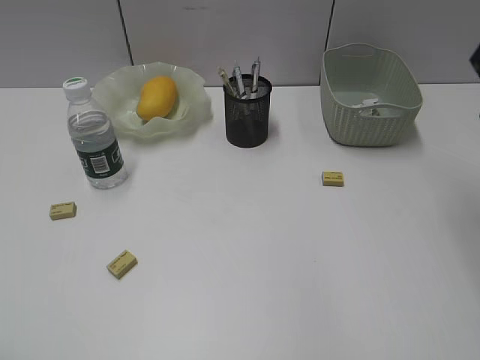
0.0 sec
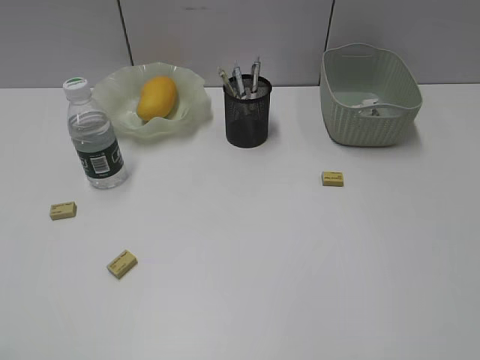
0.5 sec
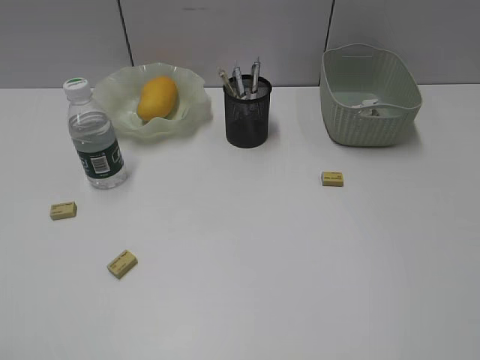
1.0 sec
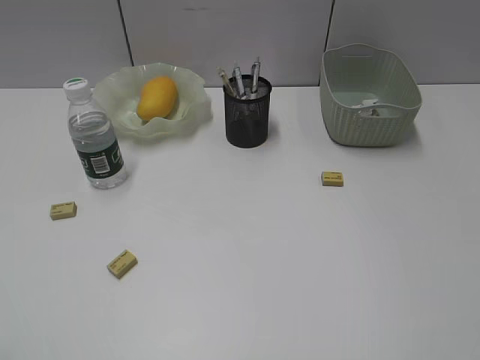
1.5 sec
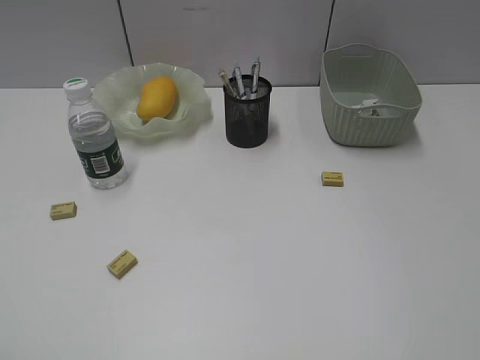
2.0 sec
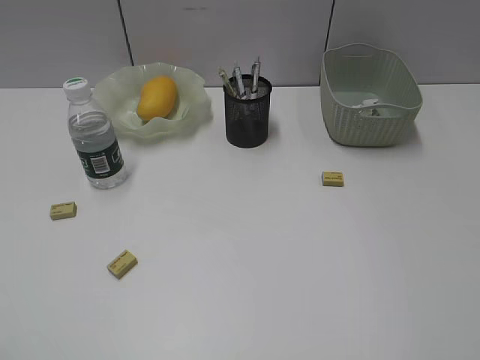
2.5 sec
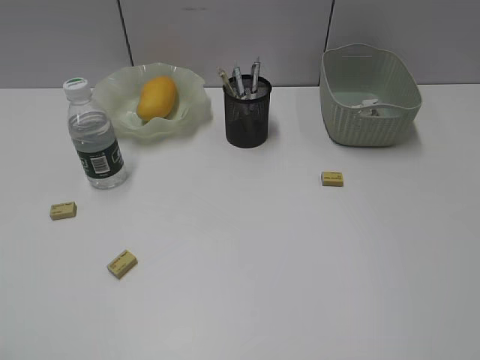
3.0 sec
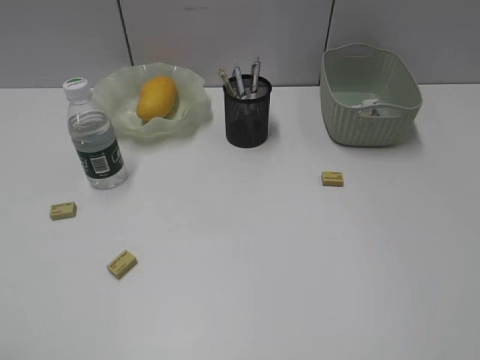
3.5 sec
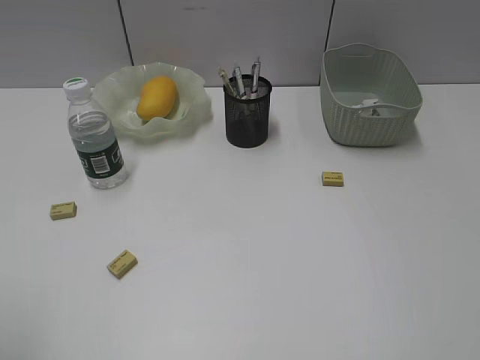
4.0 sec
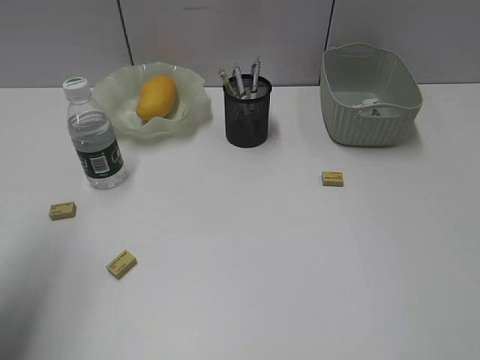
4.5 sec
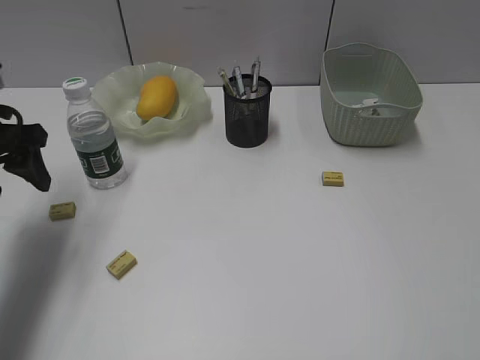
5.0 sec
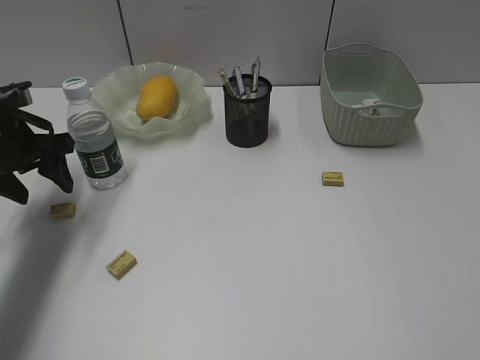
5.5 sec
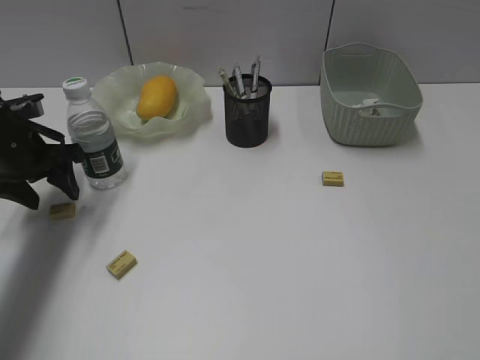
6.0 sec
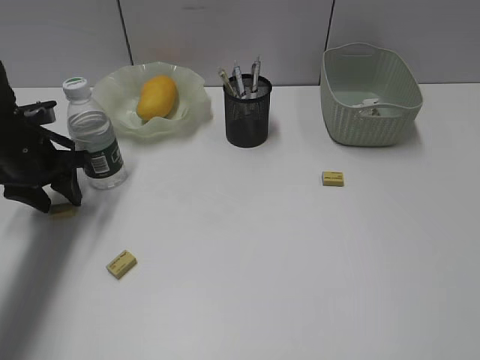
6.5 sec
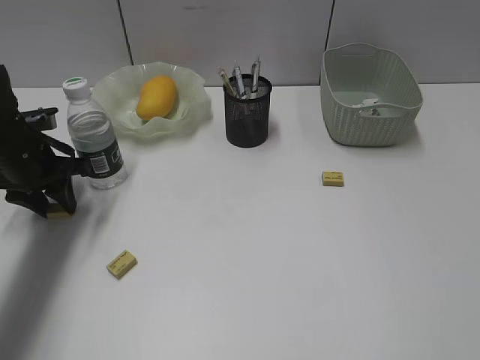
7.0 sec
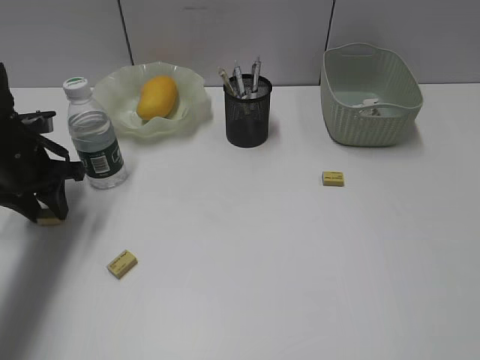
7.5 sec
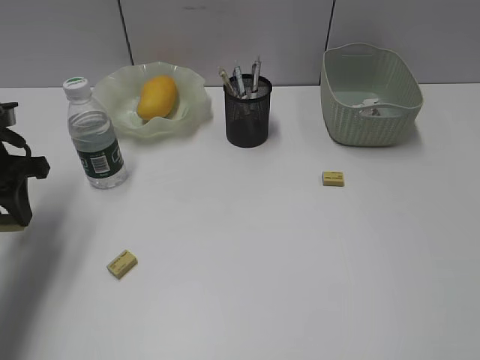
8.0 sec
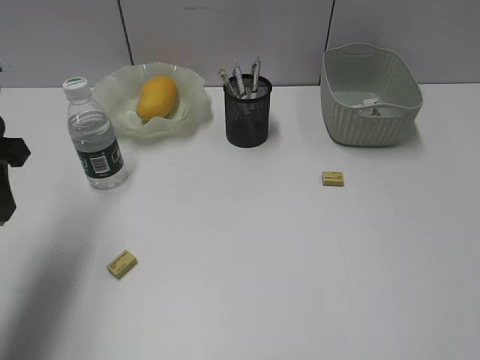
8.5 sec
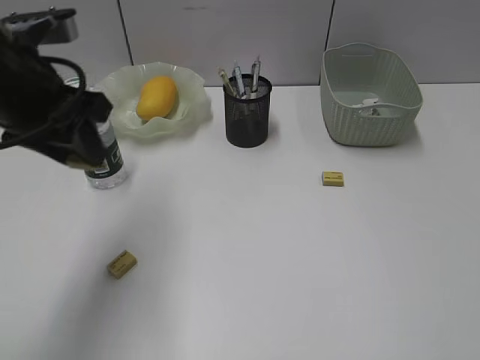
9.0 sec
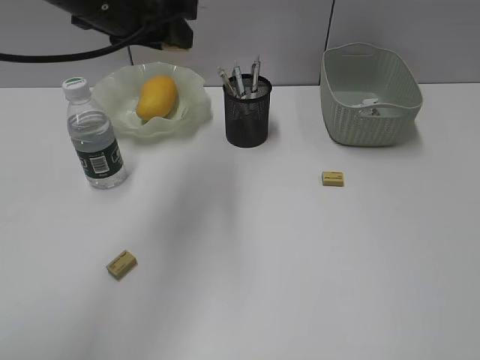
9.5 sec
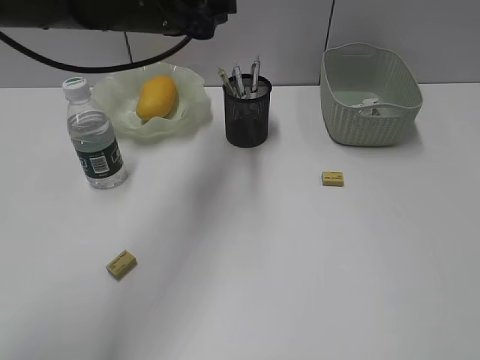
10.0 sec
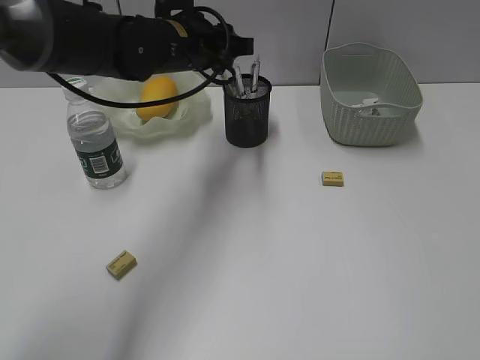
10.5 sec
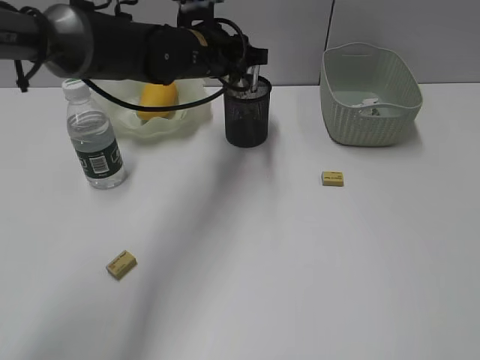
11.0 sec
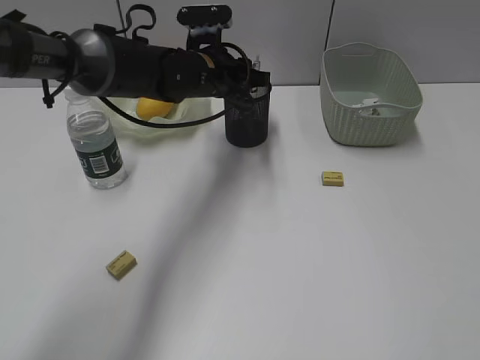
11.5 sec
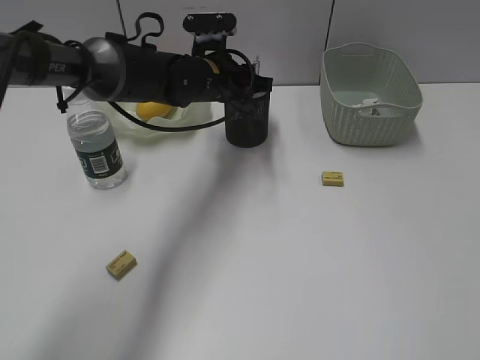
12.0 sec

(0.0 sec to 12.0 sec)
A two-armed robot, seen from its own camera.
Step, 0.0 sec - 7.0 sec: Grasp the eraser with left gripper.
4.0 sec - 6.0 sec: The left gripper travels forward and downward by approximately 35 cm.
6.0 sec - 8.0 sec: The left gripper closes.
8.0 sec - 10.0 sec: The left gripper moves to the right and upward, roughly 25 cm.
10.0 sec - 12.0 sec: The left gripper goes roughly 15 cm downward, to the right and forward.

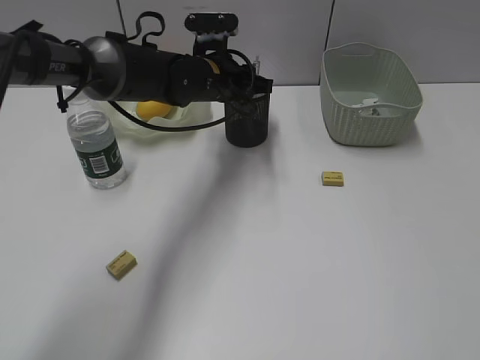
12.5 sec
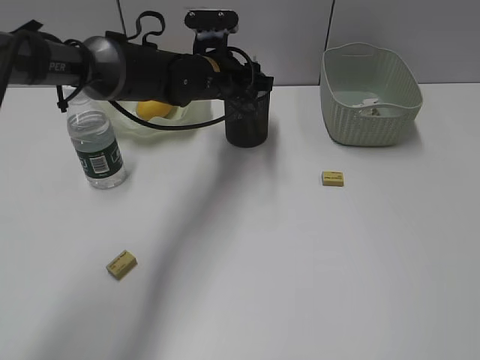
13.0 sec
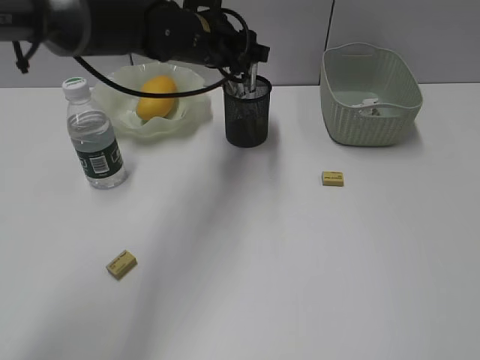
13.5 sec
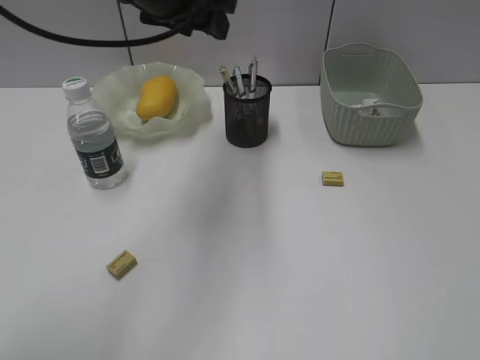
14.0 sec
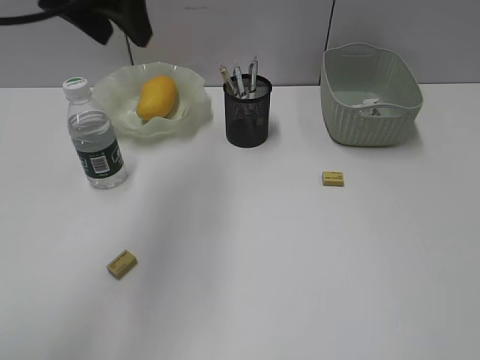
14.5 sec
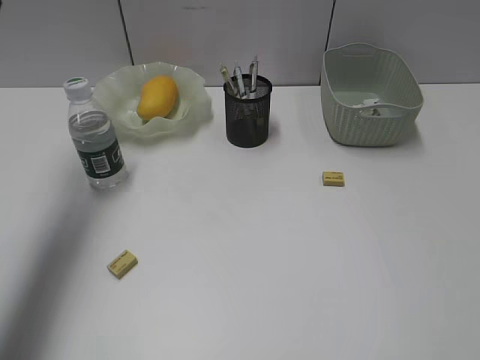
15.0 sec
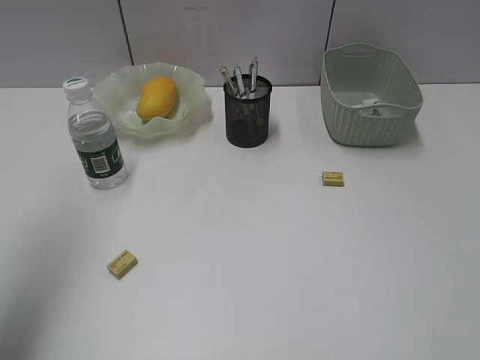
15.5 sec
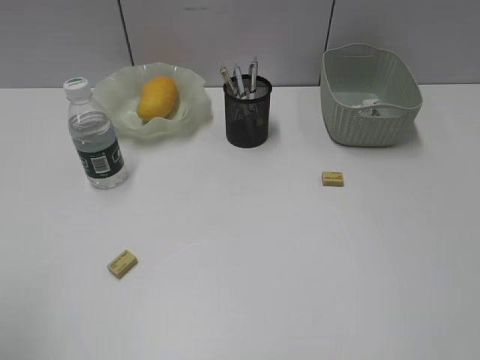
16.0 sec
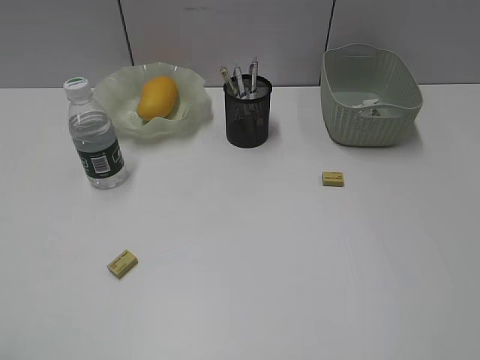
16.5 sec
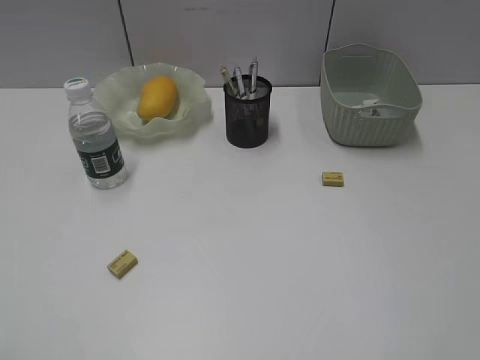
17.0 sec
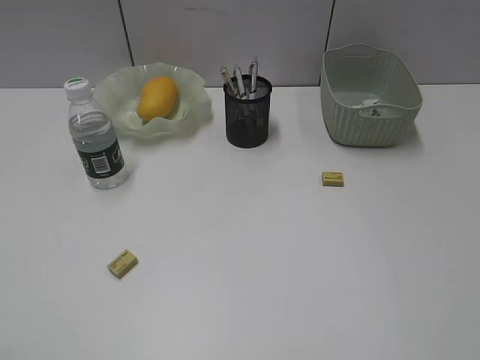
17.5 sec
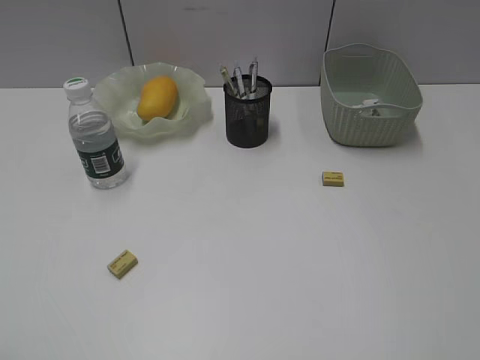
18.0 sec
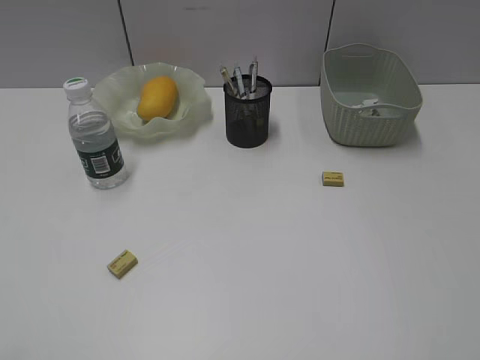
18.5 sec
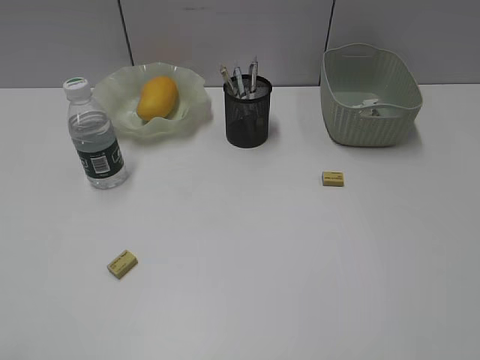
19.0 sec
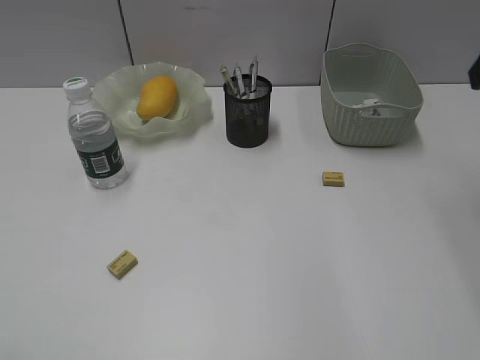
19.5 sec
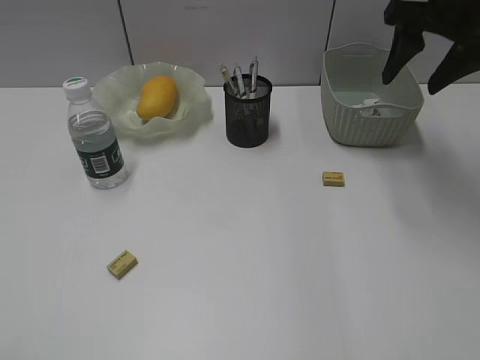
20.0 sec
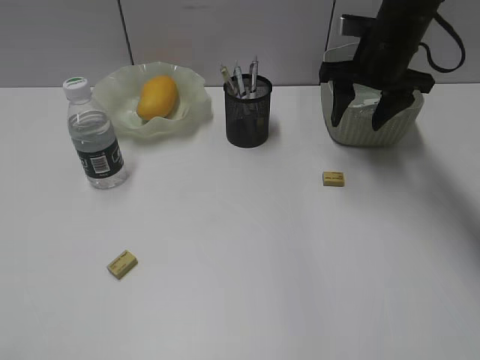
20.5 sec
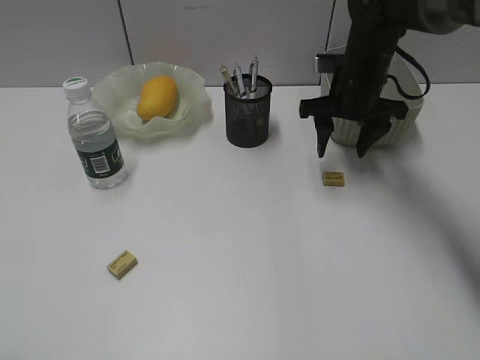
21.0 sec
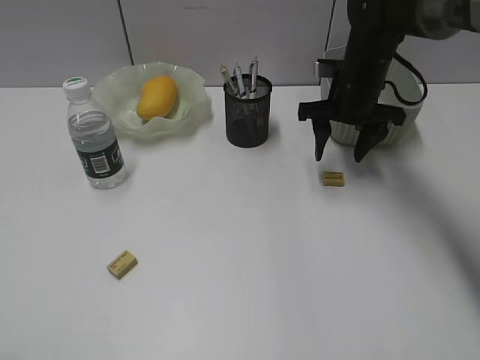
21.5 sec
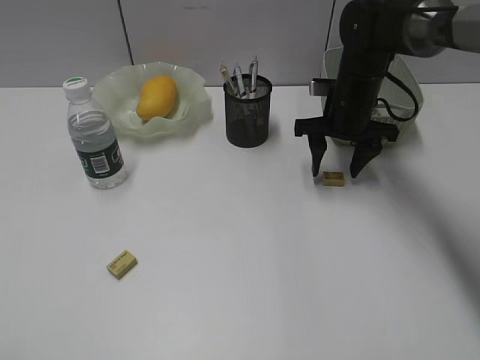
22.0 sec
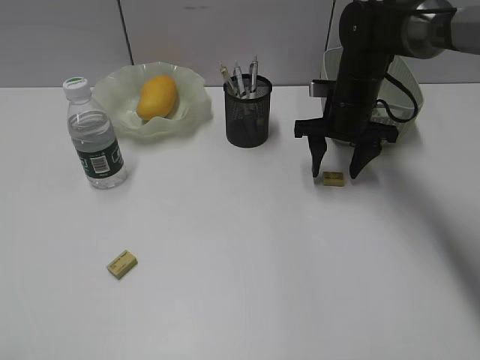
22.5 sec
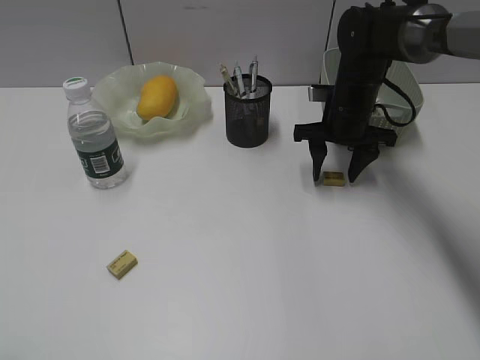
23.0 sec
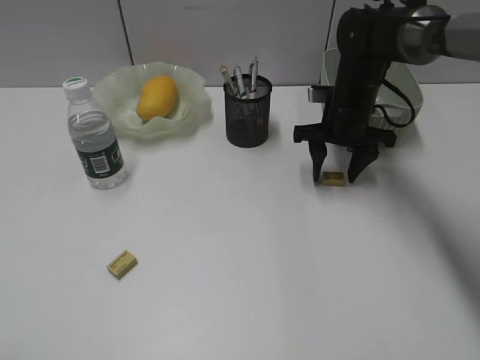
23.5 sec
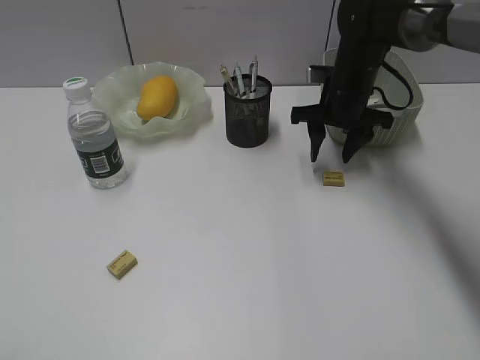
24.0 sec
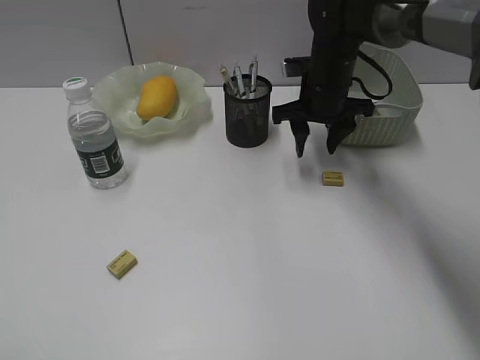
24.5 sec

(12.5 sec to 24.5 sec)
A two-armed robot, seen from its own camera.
12.5 sec - 14.5 sec: The left gripper travels upward, backward and to the left by about 25 cm.
14.5 sec - 16.5 sec: The left gripper shifts roughly 35 cm backward and to the left.
18.5 sec - 20.5 sec: The right gripper moves forward, about 40 cm.
20.5 sec - 22.5 sec: The right gripper goes some 10 cm downward.
22.5 sec - 24.5 sec: The grippers make only small movements.

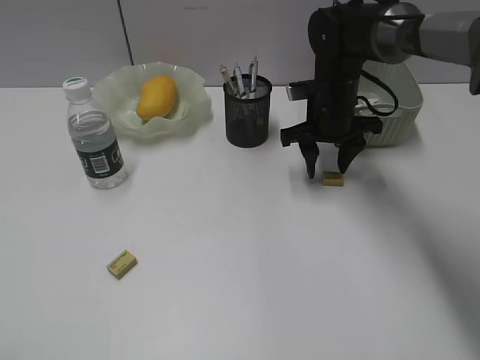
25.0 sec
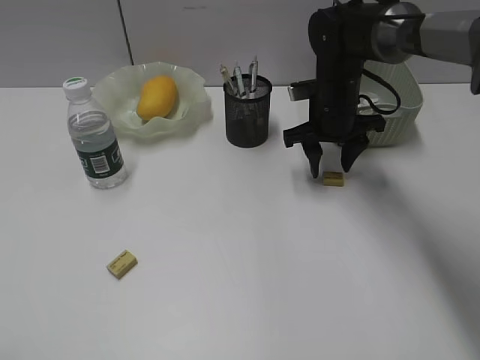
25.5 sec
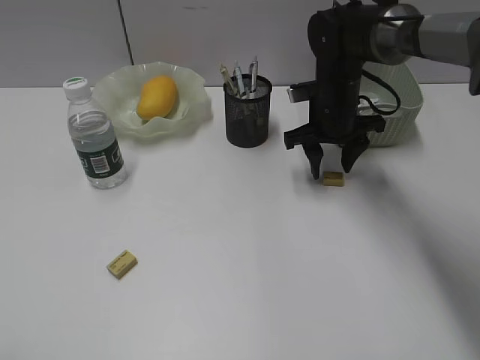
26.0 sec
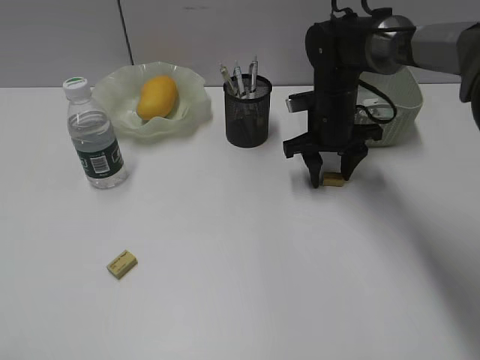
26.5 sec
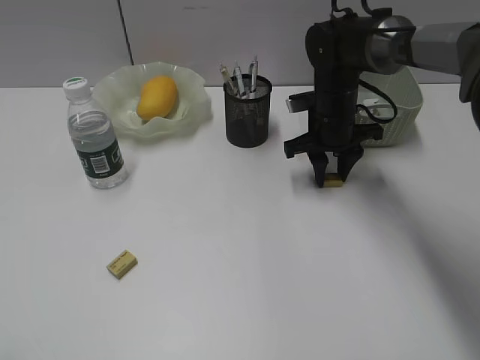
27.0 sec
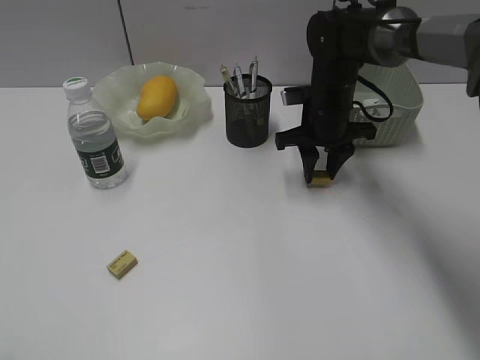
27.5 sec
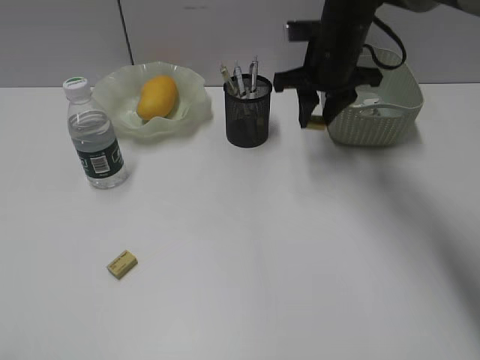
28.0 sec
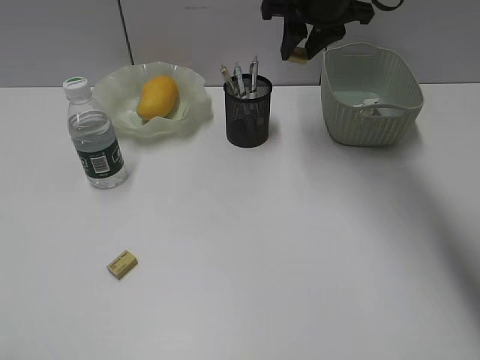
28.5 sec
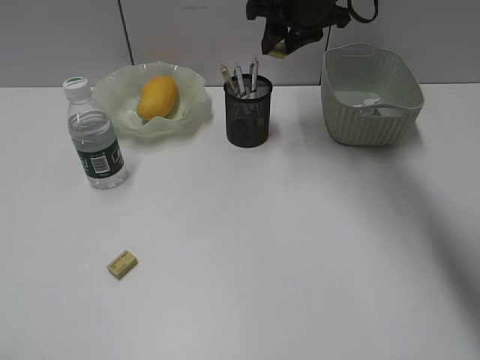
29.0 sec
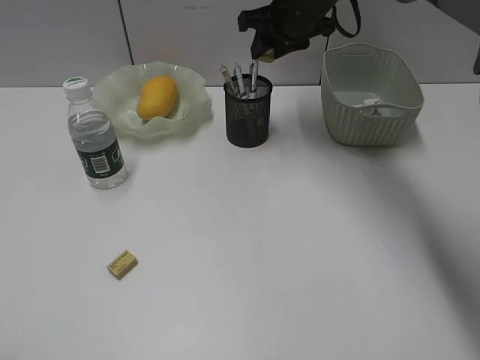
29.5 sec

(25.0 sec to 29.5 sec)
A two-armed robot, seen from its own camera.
Step, 25.0 sec - 27.0 sec: Grasp the eraser with right gripper.
25.0 sec - 27.0 sec: There are only small adjustments of the grippers.
27.0 sec - 29.5 sec: The right gripper goes about 15 cm upward and forward.
